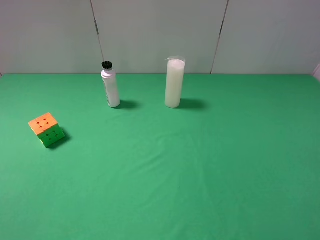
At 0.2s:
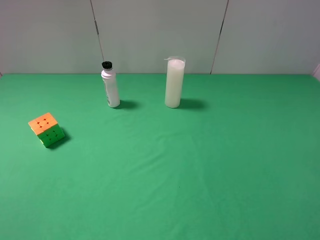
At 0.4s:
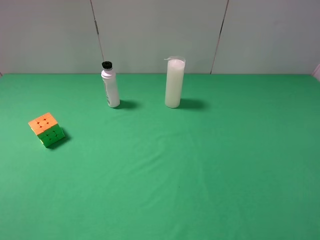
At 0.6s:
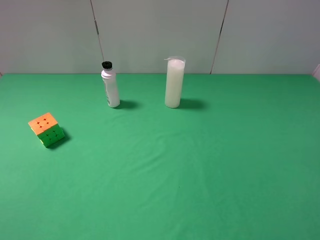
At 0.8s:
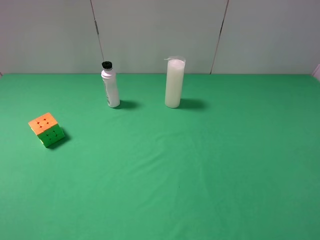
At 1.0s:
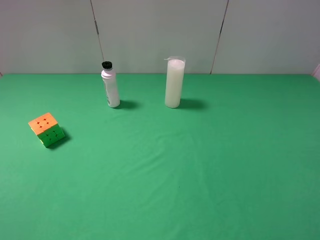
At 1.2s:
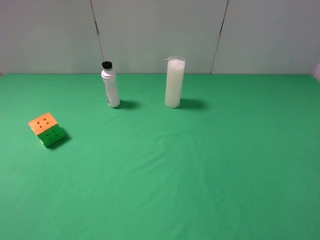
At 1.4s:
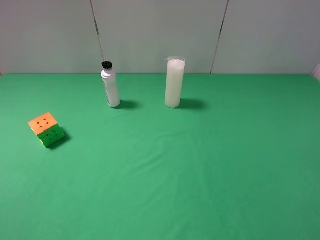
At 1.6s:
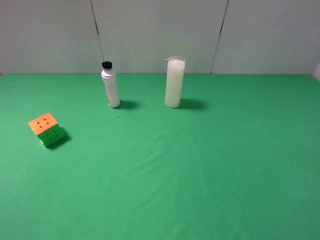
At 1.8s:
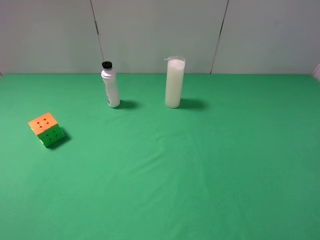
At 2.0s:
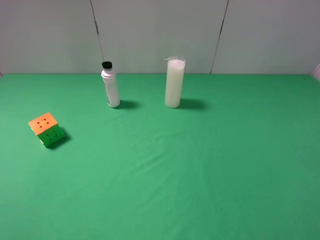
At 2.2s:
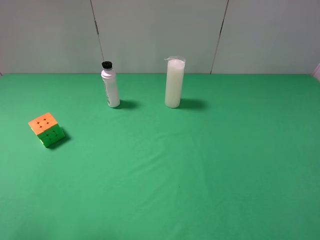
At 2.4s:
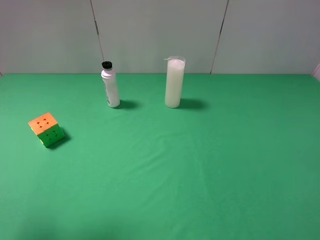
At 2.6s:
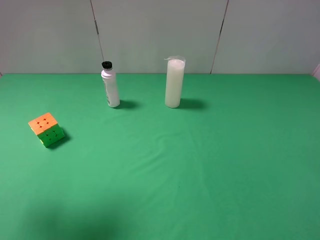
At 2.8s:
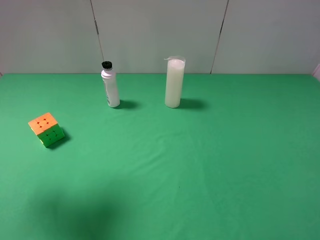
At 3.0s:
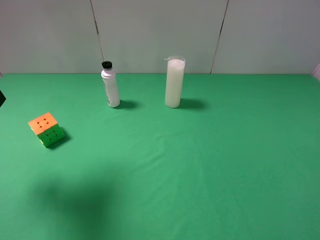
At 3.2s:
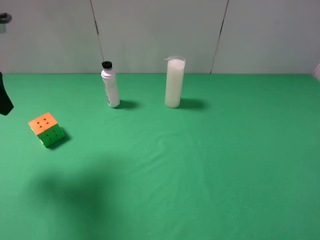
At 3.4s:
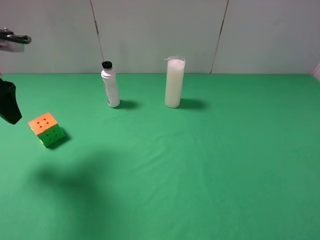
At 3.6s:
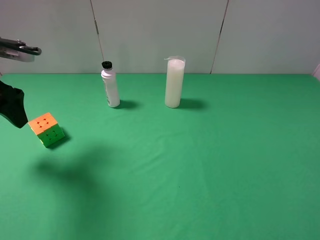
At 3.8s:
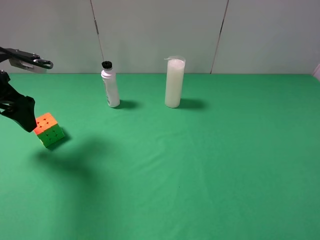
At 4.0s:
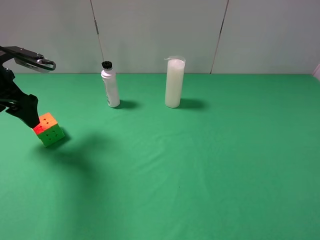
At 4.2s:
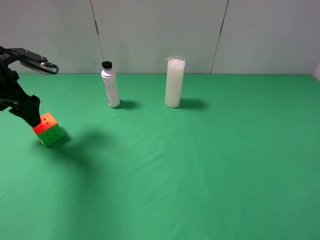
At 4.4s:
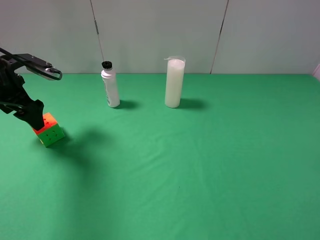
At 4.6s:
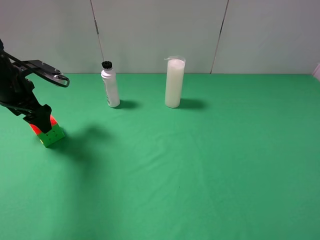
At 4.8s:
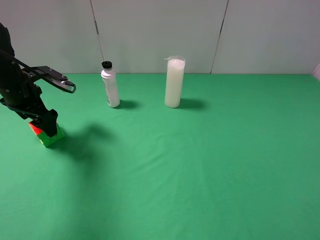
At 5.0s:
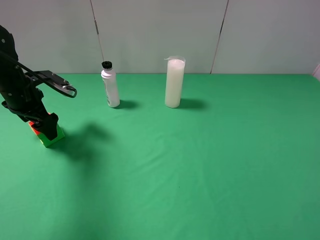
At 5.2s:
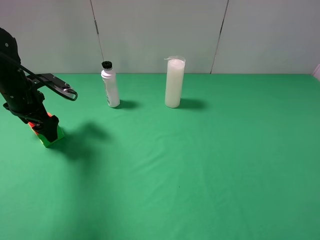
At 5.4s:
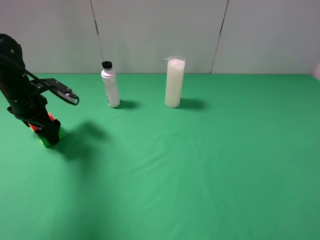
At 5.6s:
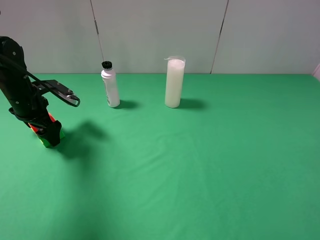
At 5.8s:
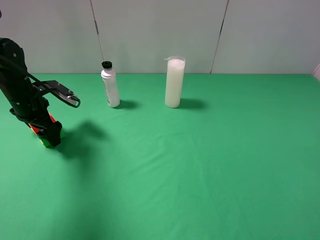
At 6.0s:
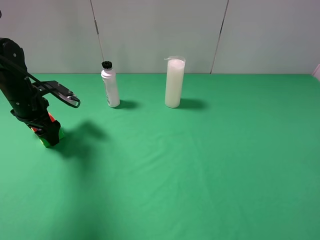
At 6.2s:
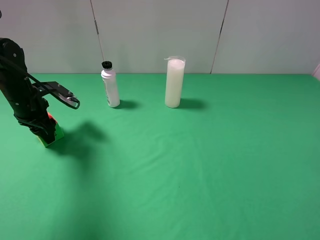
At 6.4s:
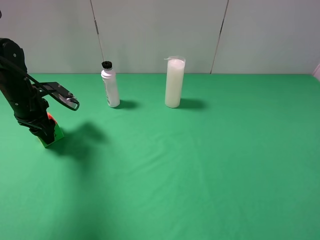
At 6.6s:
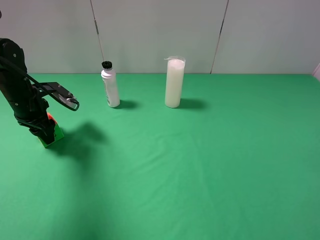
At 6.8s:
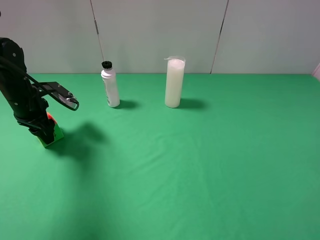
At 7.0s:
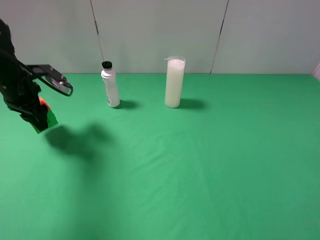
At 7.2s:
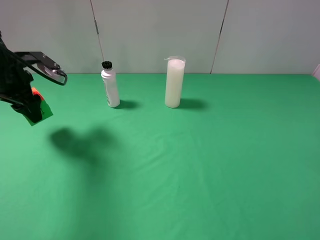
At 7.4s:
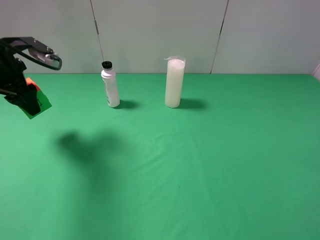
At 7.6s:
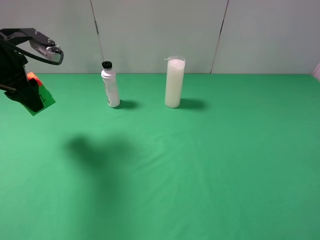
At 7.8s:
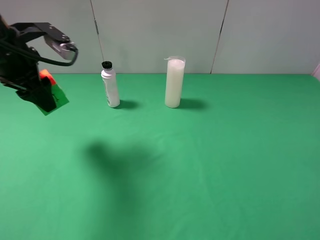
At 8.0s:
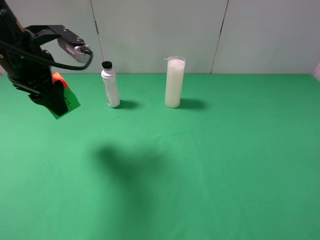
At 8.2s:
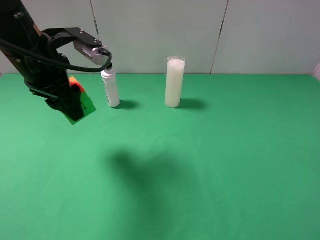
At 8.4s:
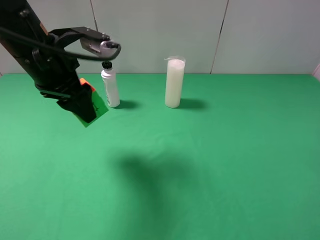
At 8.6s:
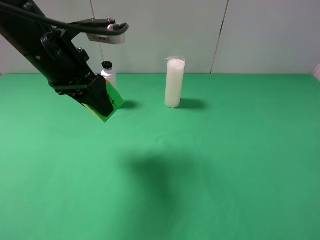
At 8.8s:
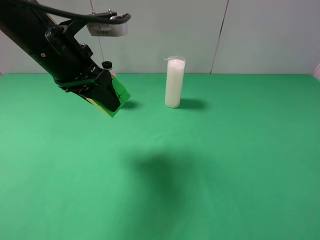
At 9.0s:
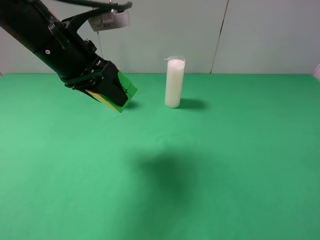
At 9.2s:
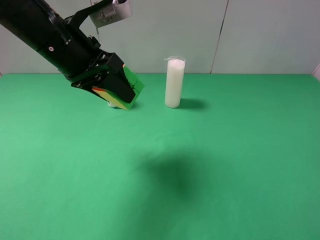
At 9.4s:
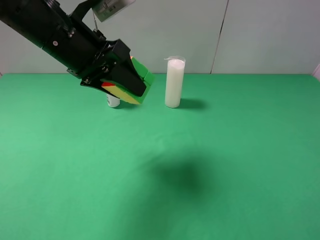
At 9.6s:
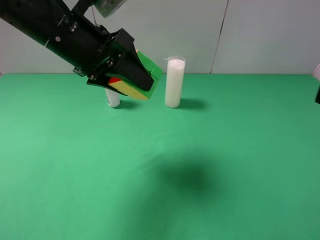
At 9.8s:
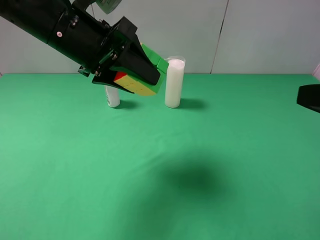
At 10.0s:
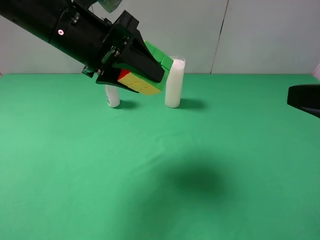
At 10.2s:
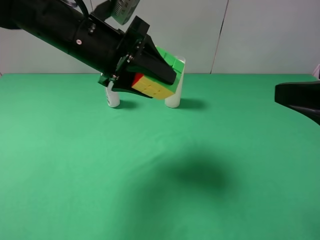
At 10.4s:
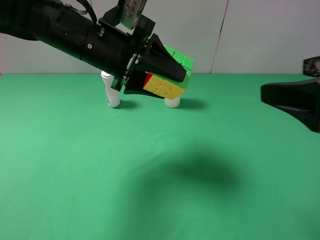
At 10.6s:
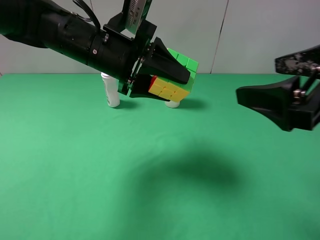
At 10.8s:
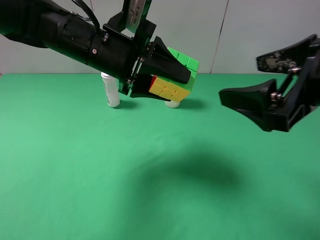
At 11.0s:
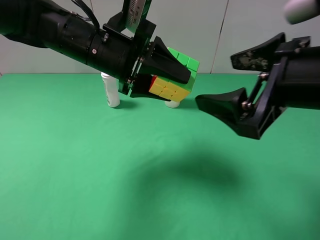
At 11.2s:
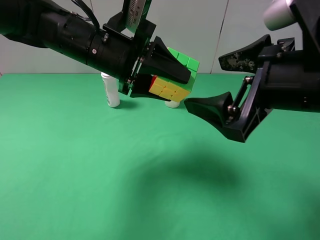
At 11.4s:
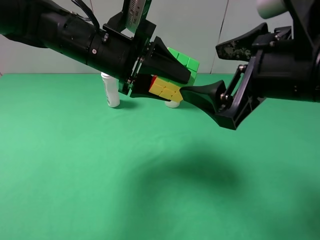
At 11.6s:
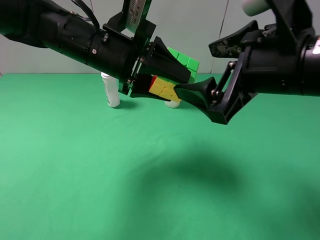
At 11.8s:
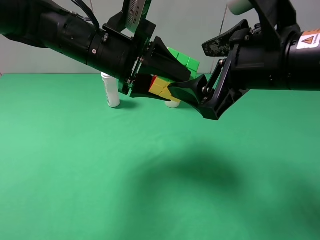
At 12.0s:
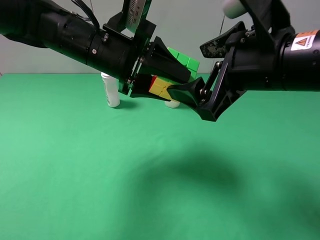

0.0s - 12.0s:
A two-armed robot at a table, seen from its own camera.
Task of the whole recording: use the left gripper to pick up the item and transfer it from the left gripper to the right gripper.
Step, 0.0s - 6.2s: Use the left gripper to grab the Rubik's Cube on the left side of the table.
0.0s - 1.6s: Both grippers stay put.
1.6s - 3.0s: The left gripper is displaced forward by some 20 cm.
3.0s - 4.4s: The left gripper shifts approximately 15 cm downward and forward.
4.4s - 6.0s: The left gripper moves downward, approximately 5 cm, and closes up.
6.0s - 7.6s: The left gripper travels upward by some 15 cm, and closes.
7.6s - 9.0s: The left gripper travels to the right by some 15 cm.
9.0s - 10.4s: The right gripper travels forward and to the left by about 10 cm; the left gripper shifts by approximately 5 cm.
10.4s - 12.0s: The right gripper moves to the left and forward, about 10 cm.

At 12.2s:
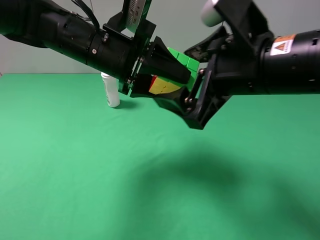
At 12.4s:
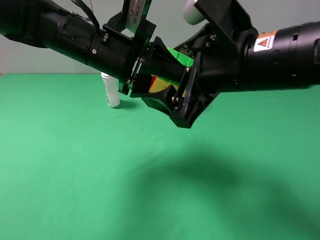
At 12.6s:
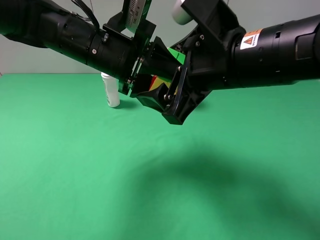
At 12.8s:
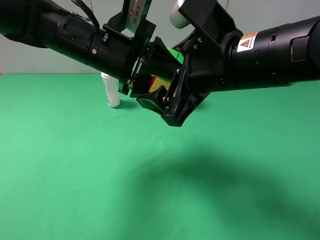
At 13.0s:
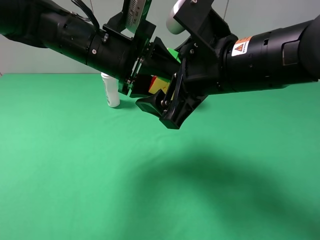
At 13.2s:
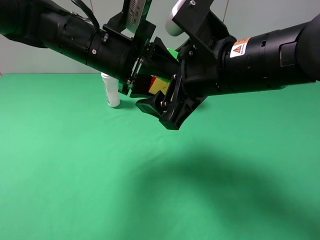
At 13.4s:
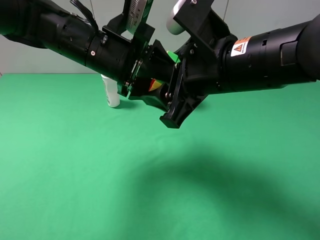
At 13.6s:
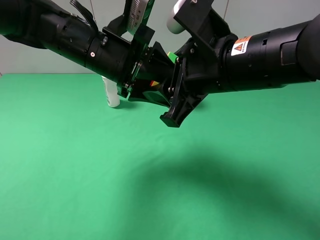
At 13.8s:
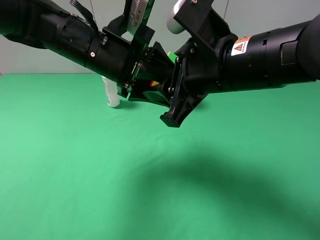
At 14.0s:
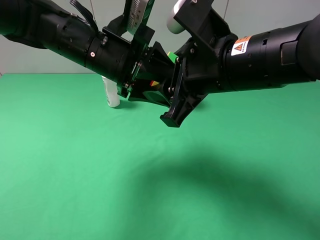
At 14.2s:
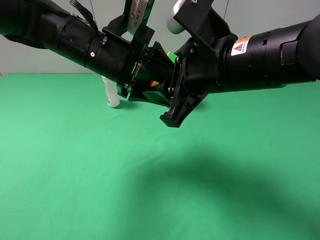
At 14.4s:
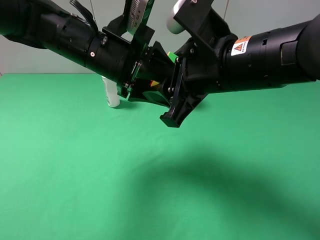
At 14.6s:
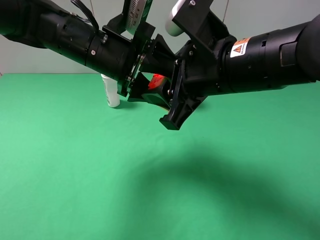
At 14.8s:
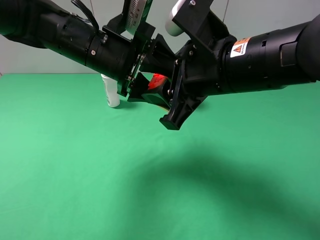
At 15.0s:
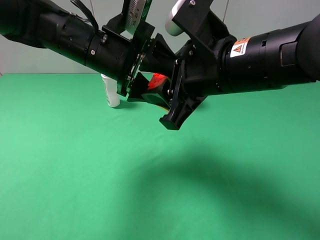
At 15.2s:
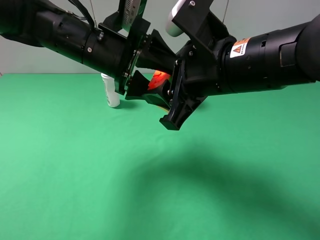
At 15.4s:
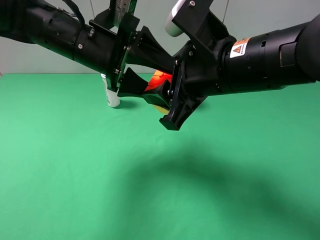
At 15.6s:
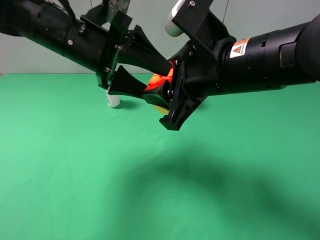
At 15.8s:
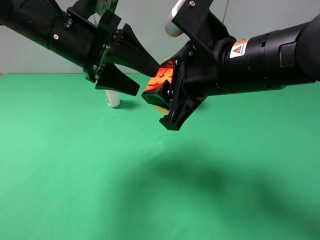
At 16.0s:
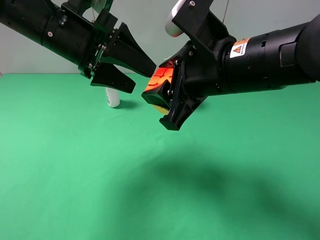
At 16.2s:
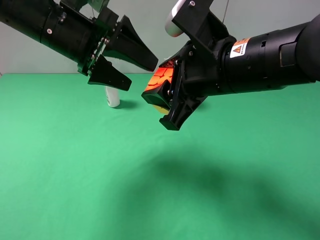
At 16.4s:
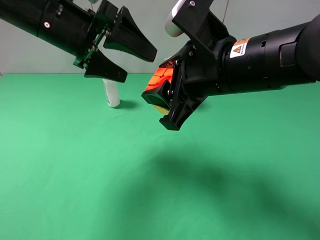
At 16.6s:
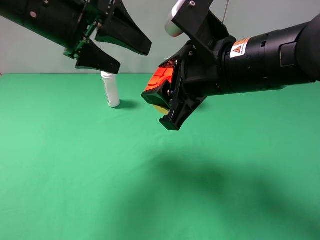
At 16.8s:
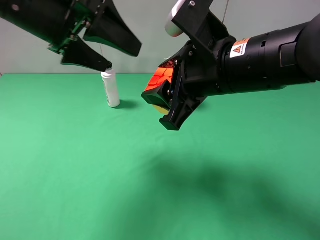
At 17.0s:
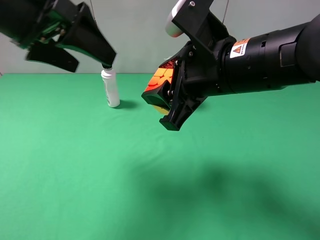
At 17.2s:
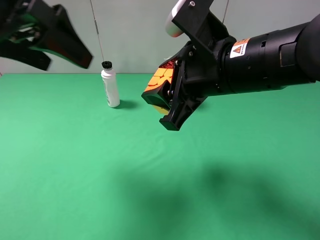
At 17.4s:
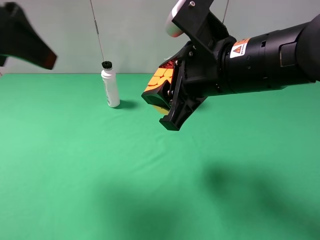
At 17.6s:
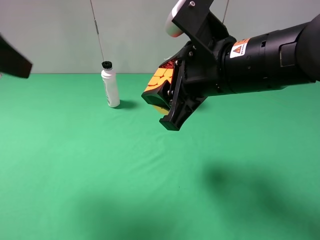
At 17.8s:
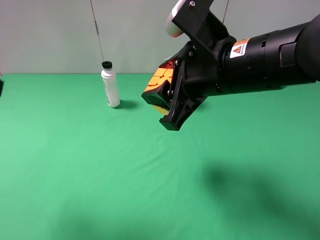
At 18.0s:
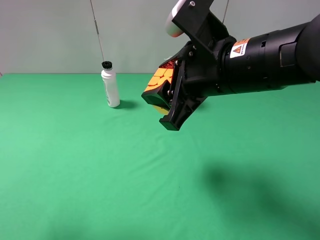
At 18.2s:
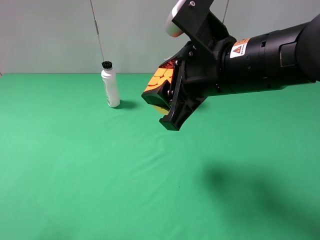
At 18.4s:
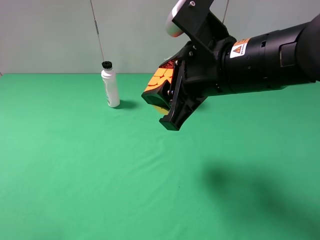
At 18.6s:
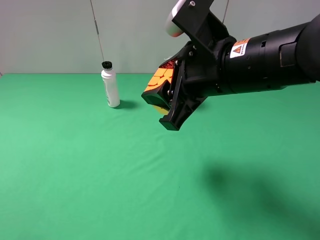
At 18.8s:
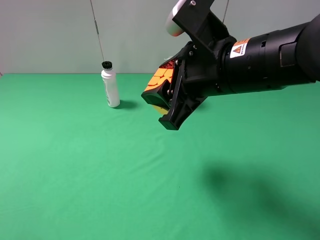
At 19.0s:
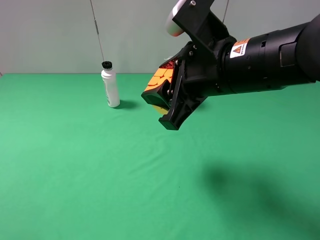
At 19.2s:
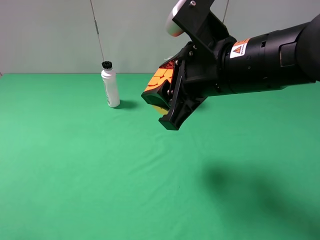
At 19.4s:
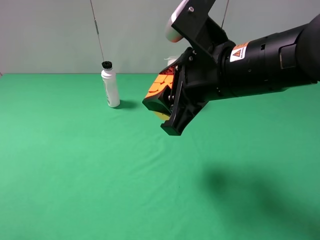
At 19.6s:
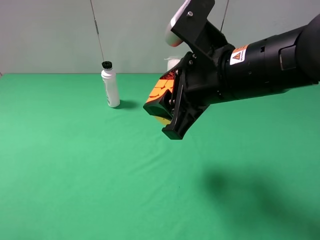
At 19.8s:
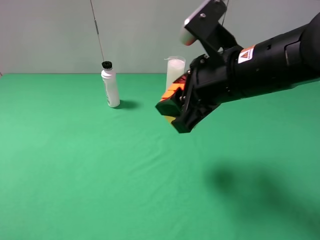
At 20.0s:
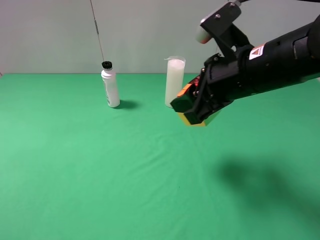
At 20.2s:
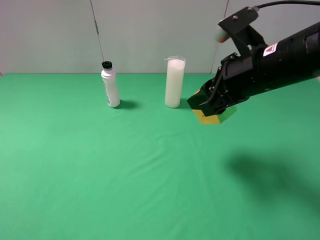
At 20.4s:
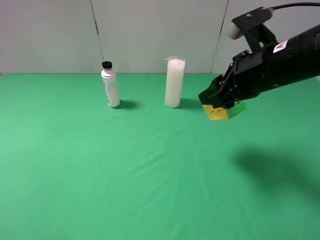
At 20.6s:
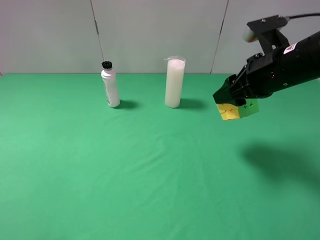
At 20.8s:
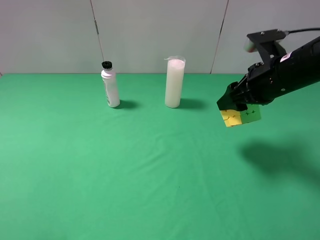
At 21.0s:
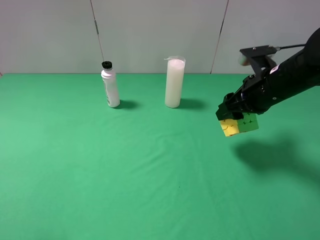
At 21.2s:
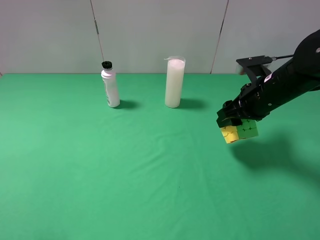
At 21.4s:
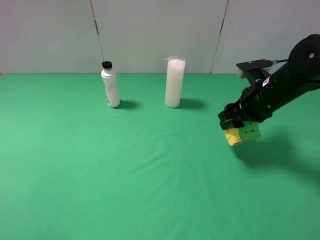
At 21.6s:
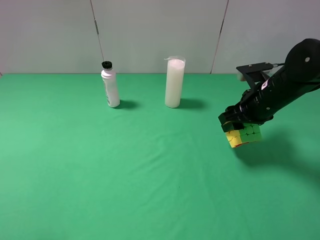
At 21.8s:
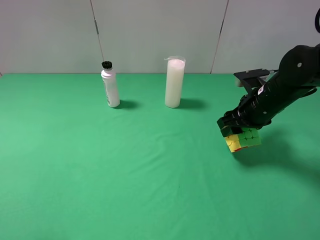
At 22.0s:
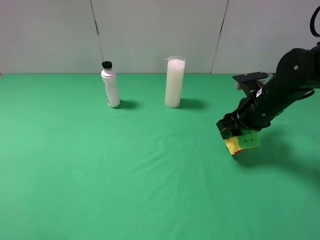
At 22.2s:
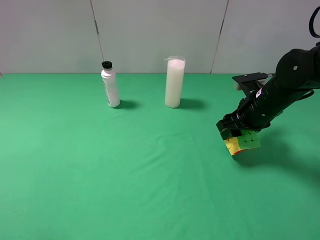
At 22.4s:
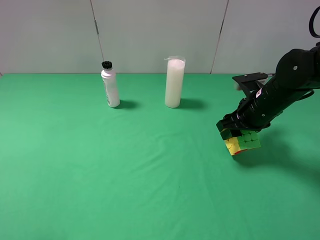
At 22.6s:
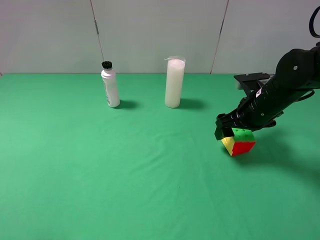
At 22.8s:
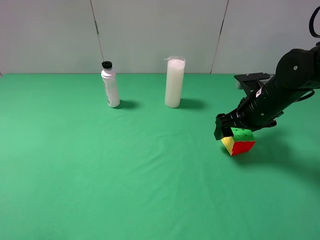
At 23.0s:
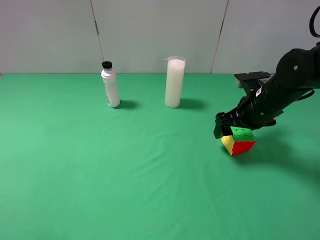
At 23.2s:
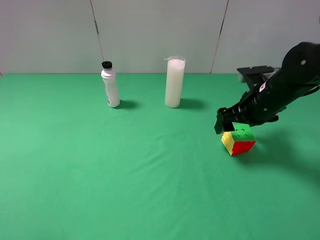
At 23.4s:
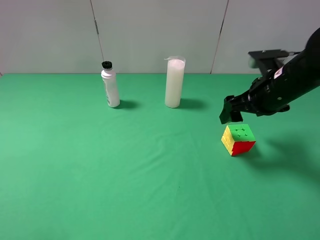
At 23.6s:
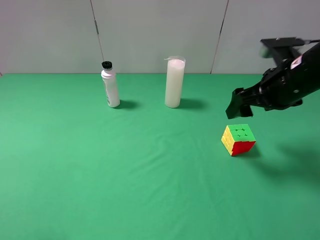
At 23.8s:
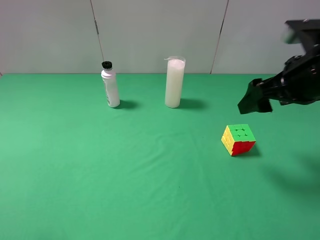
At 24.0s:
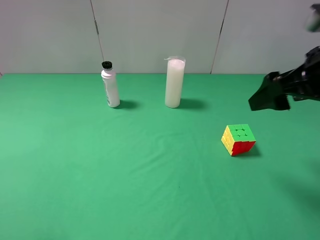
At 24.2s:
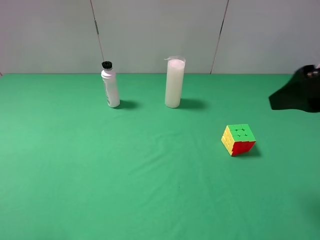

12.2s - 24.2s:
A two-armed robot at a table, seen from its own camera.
Task of the whole recording: use the left gripper to pick up the item and transfer it from the left gripper to the right gripper.
Step, 12.2s - 14.6s: Pass the Rubik's Cube to the right gripper.
Step, 14.8s - 22.8s: The right gripper places Rubik's Cube on the right side of the table.
12.2s - 13.8s: The right gripper closes its fingers.
13.8s - 15.2s: The left gripper opens its fingers.
15.2s - 16.6s: The left gripper is displaced upward and to the left by approximately 10 cm, and opens up.
16.6s - 18.2s: The left gripper shifts roughly 25 cm backward and to the left.
18.2s - 19.8s: The left gripper changes place by approximately 5 cm.
19.8s - 21.2s: The right gripper shifts roughly 15 cm to the right, downward and forward.
21.2s - 22.6s: The right gripper opens up.
22.6s - 24.2s: The right gripper travels upward and backward by approximately 20 cm.
